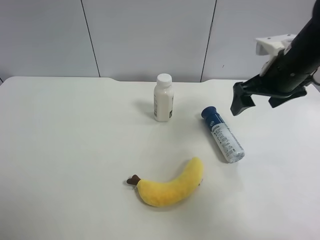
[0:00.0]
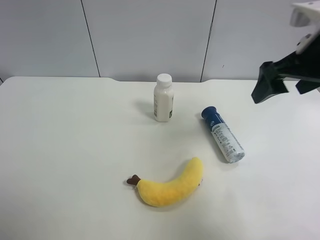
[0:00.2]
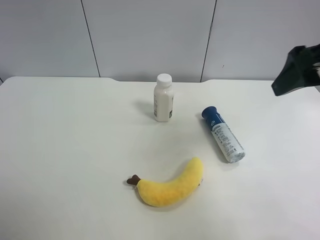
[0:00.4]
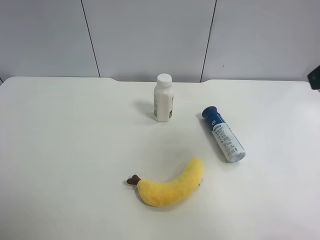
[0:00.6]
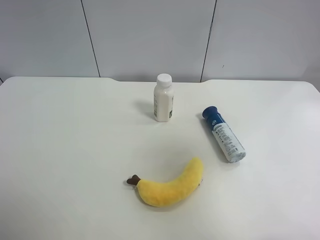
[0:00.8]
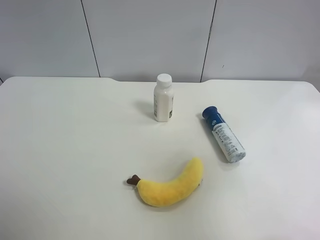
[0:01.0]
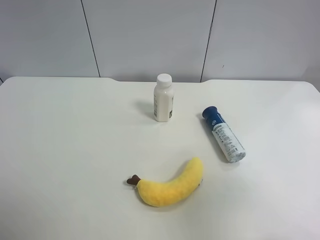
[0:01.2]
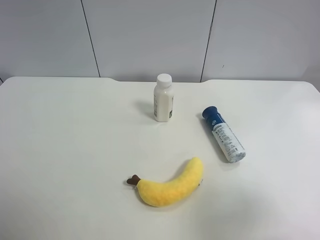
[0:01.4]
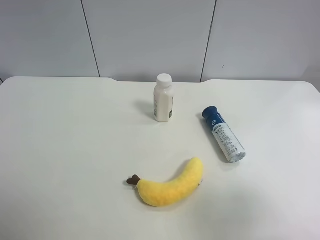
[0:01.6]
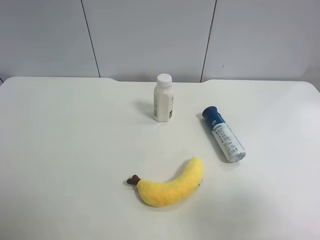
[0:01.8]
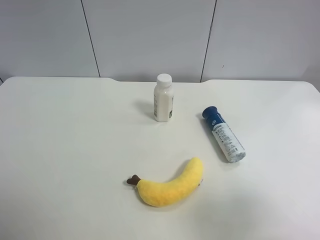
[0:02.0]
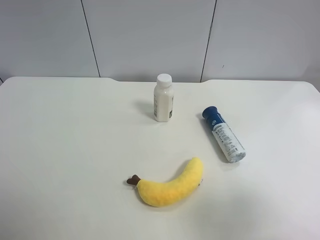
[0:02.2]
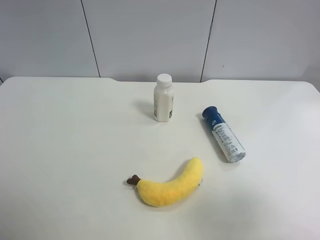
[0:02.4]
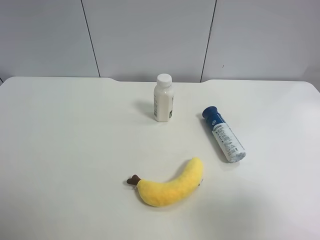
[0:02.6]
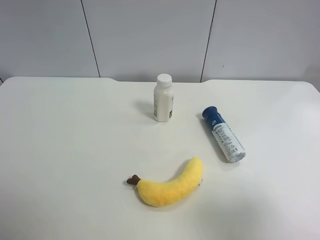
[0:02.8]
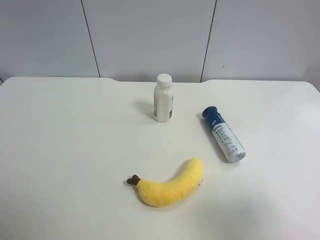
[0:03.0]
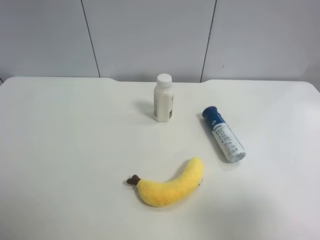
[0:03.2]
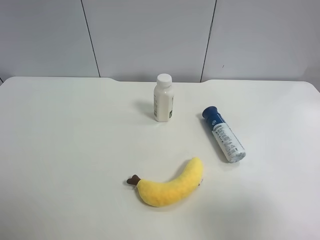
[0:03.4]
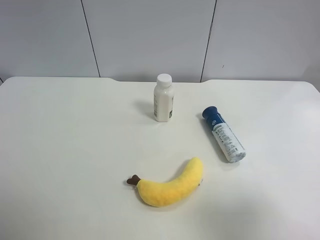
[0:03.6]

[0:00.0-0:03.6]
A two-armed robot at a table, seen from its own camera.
Task of the whole recording: use the left gripper to pick up the item and transfer it from the left gripper to the right gripper.
0:00.0 to 0:01.8: The right gripper is displaced backward by roughly 30 cm.
